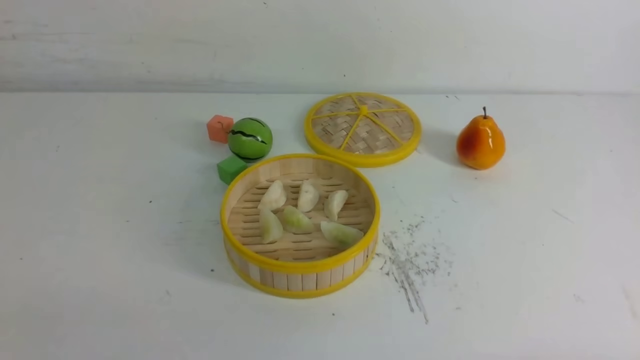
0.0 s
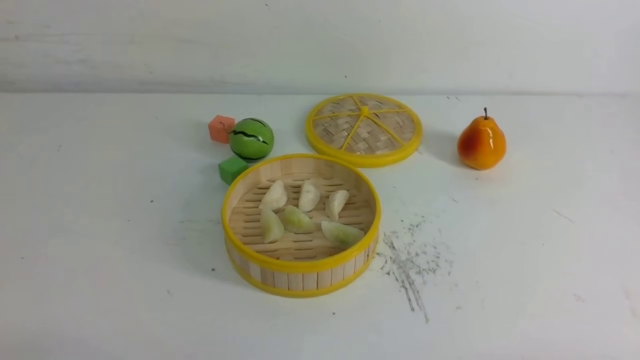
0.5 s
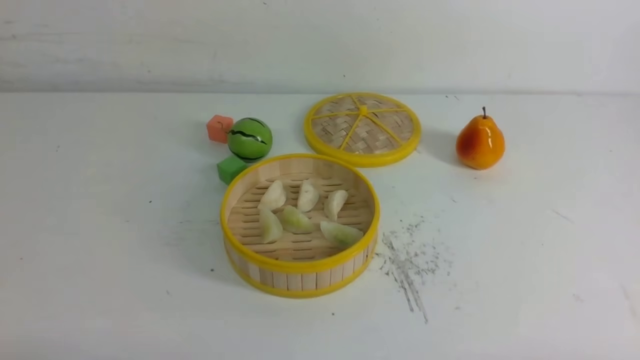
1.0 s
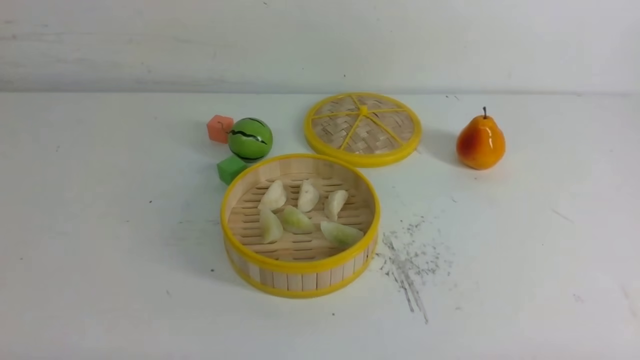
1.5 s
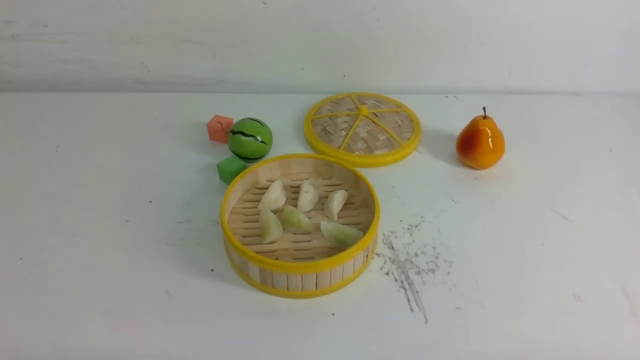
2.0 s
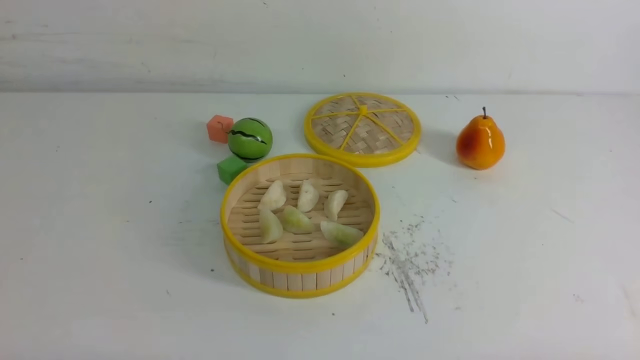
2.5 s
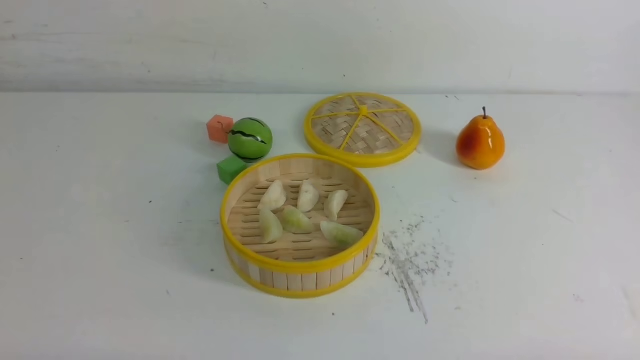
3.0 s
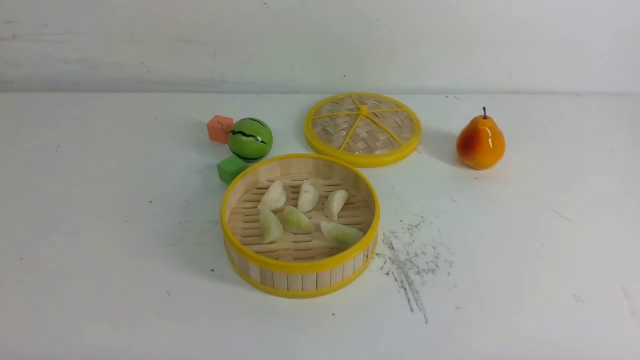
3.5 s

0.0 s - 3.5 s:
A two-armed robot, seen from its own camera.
Task of the whole recording: put the dumplings into the steamer on the white table.
2.0 s - 3.5 s: Neither gripper changes place.

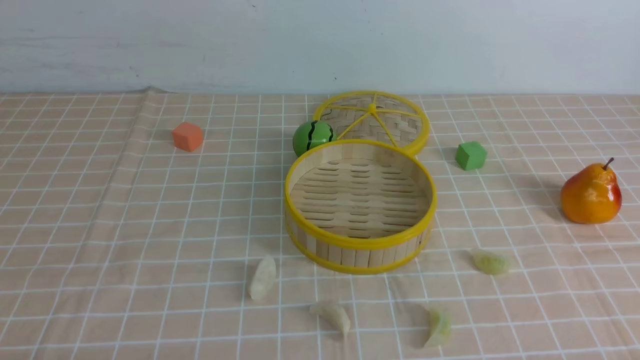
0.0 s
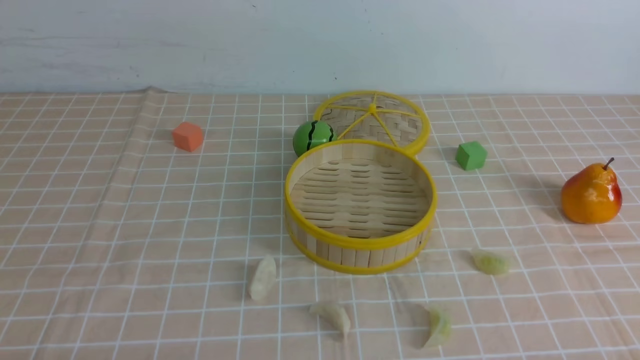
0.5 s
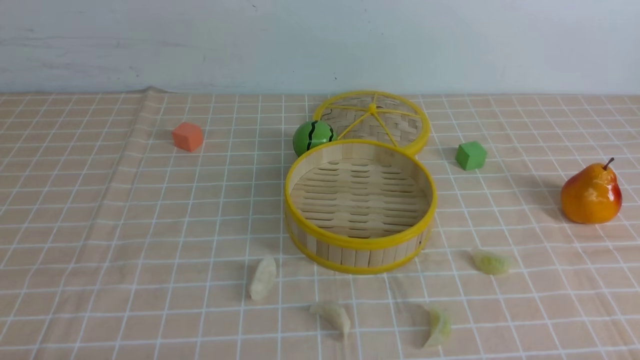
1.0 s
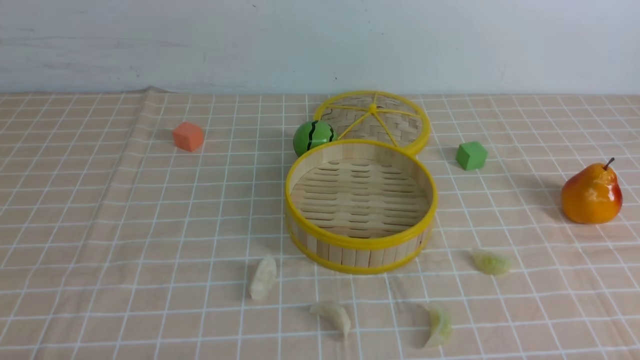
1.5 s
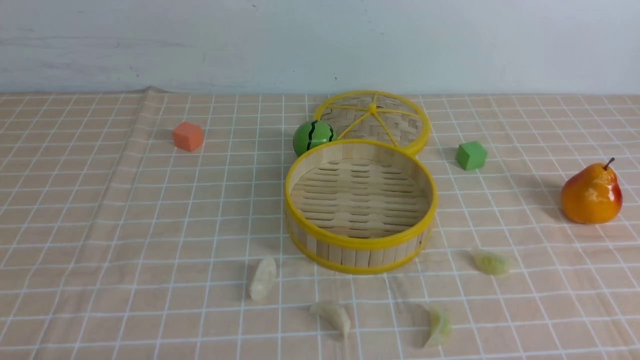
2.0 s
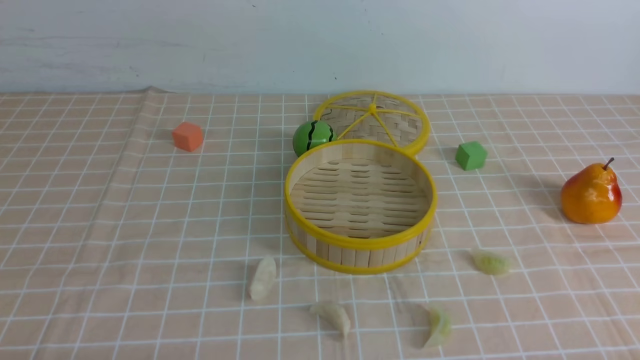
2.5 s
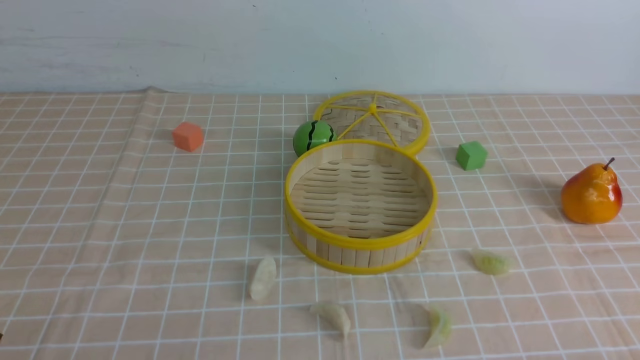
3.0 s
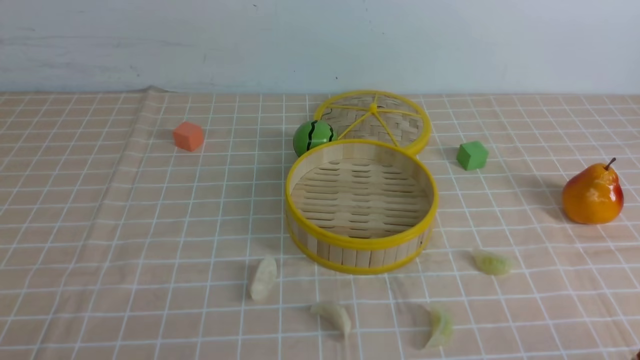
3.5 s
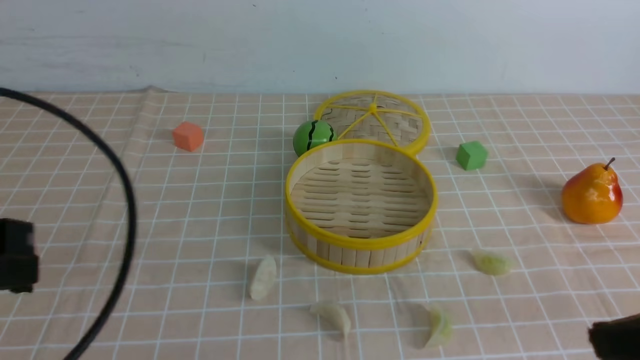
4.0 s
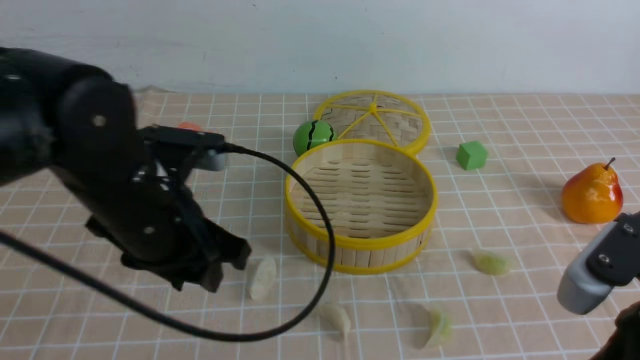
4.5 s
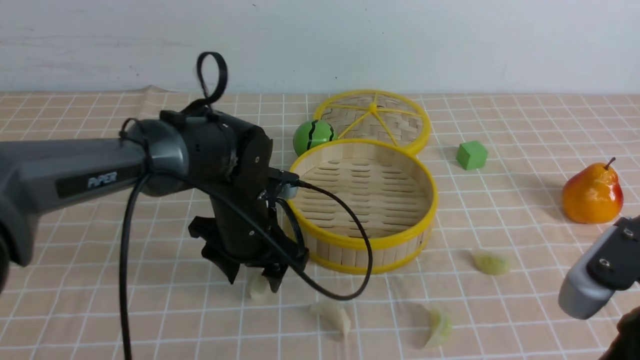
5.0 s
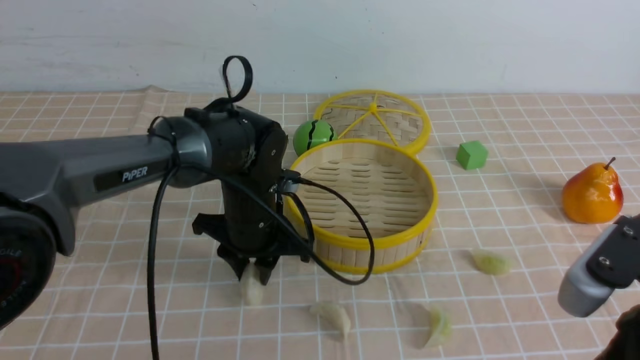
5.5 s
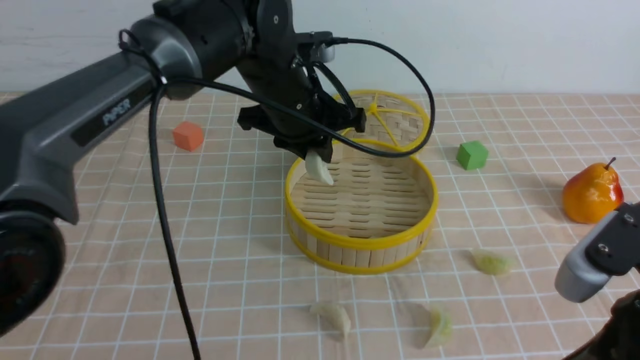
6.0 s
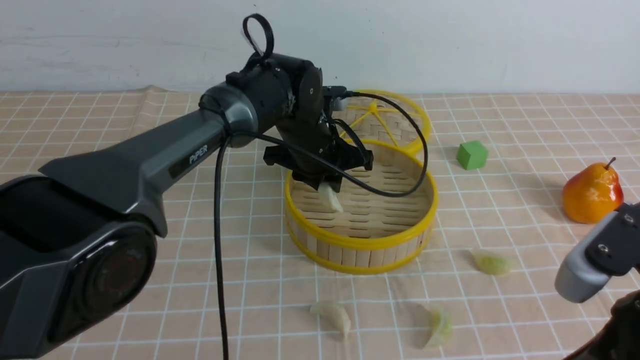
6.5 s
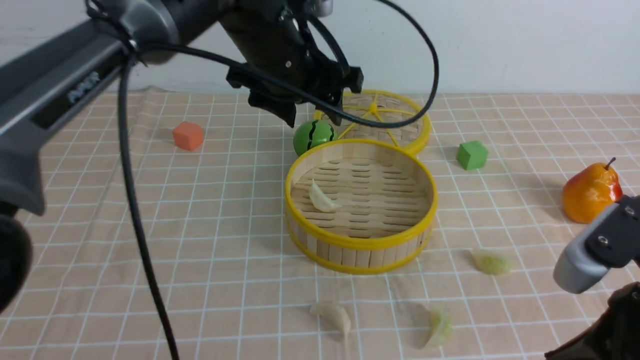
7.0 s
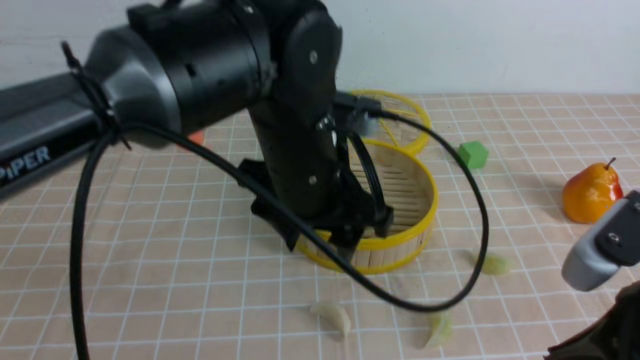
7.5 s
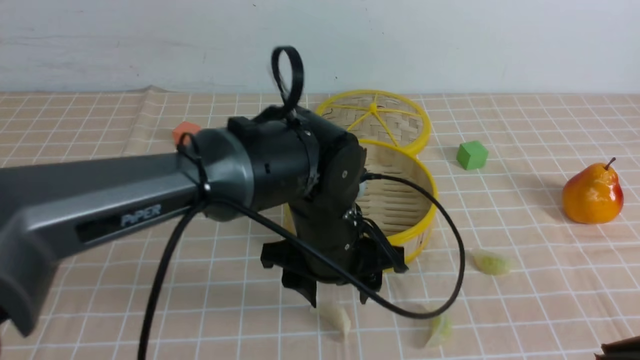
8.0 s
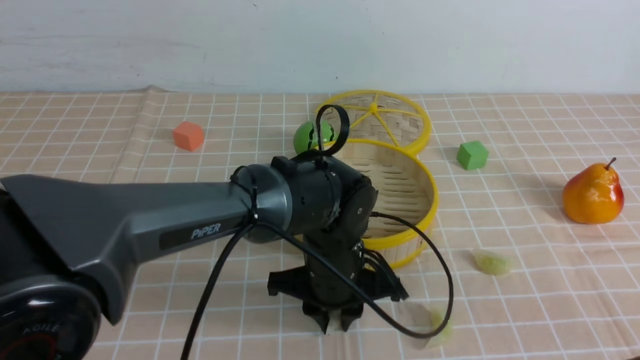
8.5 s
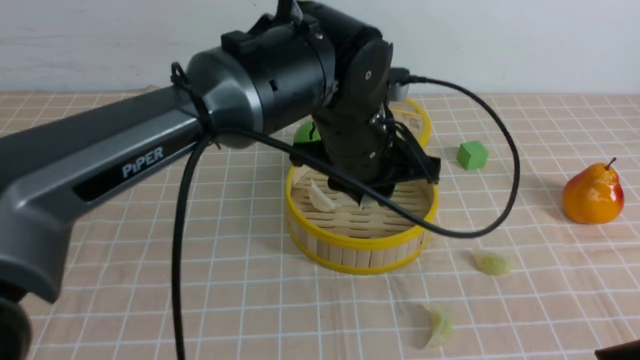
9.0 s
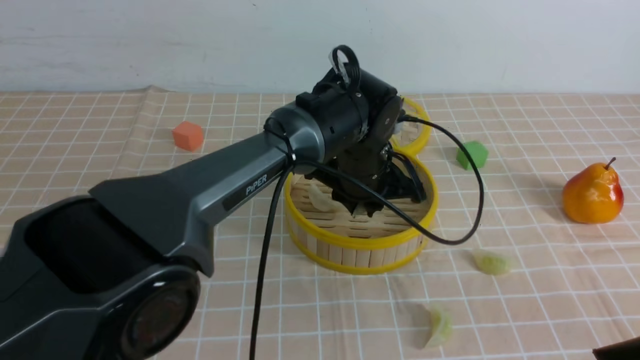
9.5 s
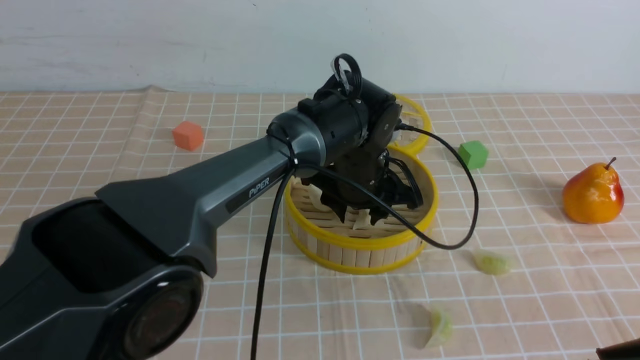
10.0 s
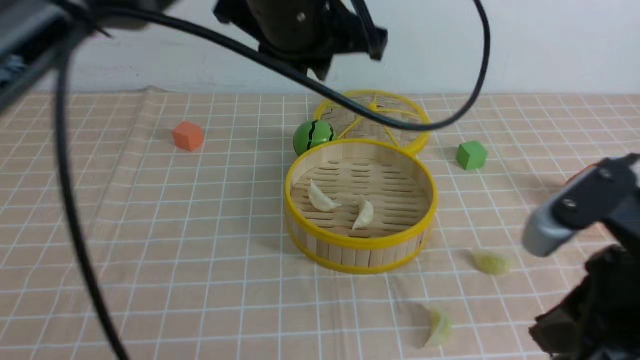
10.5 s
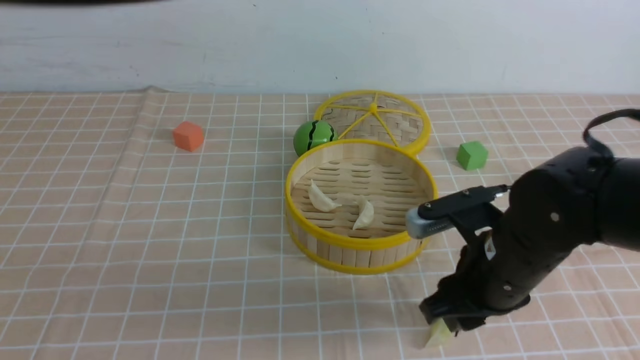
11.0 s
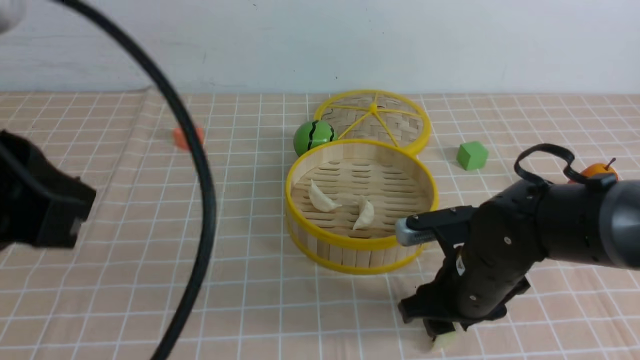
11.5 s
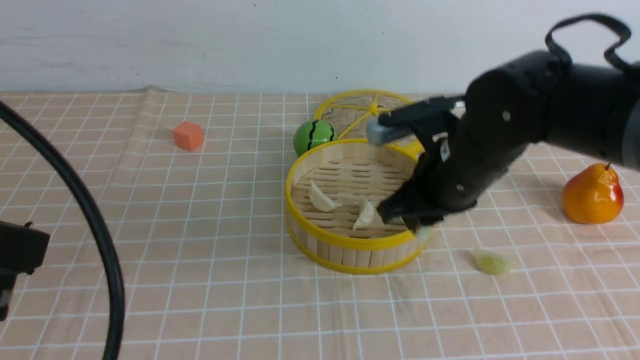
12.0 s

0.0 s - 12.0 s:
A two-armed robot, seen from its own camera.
Task of the whole recording: put the dumplings into the steamer on the table with the brown tablecloth.
Step, 0.0 s - 5.0 s: use the left arm to grab a dumpling.
Step, 5.5 s - 6.5 s: use the left arm to put the dumpling into the steamer.
Step, 7.0 s - 8.5 s: use the left arm to grab a dumpling.
Step, 9.0 s - 10.0 s: use the left arm to put the dumpling into the steamer.
Step, 10.5 s - 11.5 s: use the right arm to grab a dumpling.
2.0 s - 4.0 s: The right gripper is displaced upward by some 15 cm, and closes its fingers. Meanwhile the left gripper shifts some 20 cm upward and forward, and closes its fingers.
4.0 s - 6.0 s: The right gripper ends up some 5 cm from where it was; the left gripper shifts some 35 cm forward and to the right, and opens, then closes once more.
6.0 s - 8.0 s: The right gripper changes place by some 5 cm; the left gripper heads backward and downward, covering about 10 cm, and opens up.
8.0 s - 10.0 s: The left gripper moves forward, some 10 cm.
10.0 s - 12.0 s: The left gripper is displaced backward, to the left and upward by approximately 40 cm, and closes its fingers, while the right gripper is displaced forward and to the left by approximately 25 cm, and opens, then closes again.

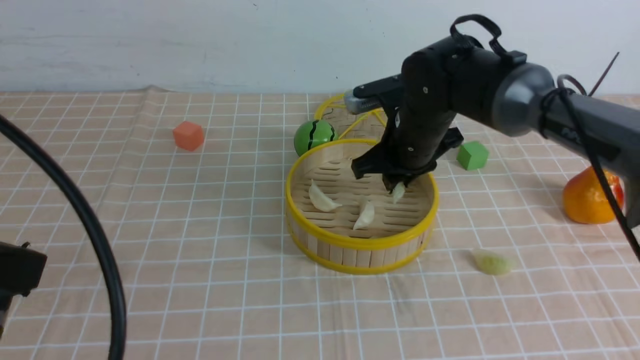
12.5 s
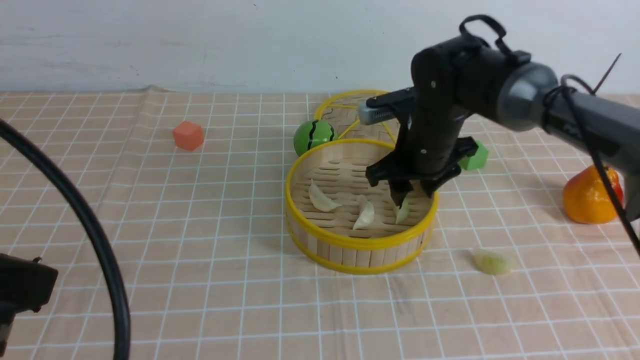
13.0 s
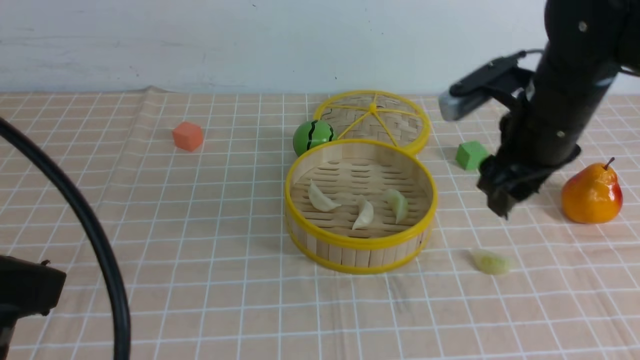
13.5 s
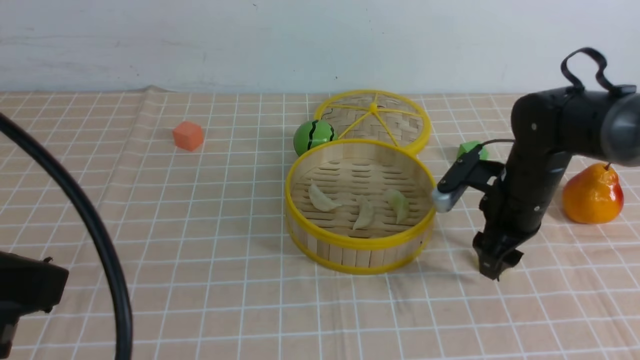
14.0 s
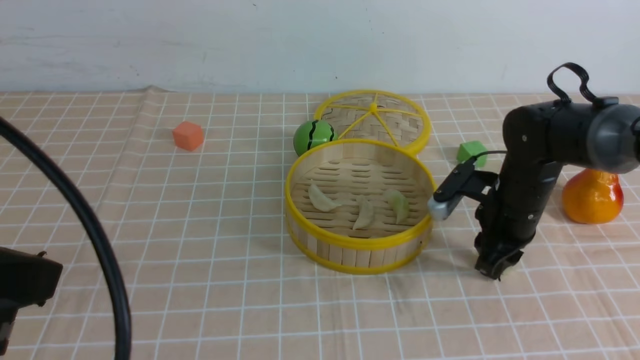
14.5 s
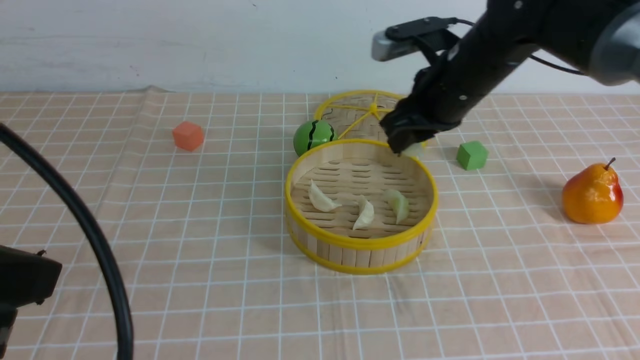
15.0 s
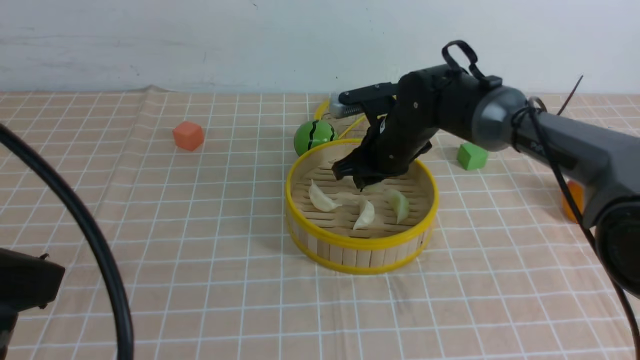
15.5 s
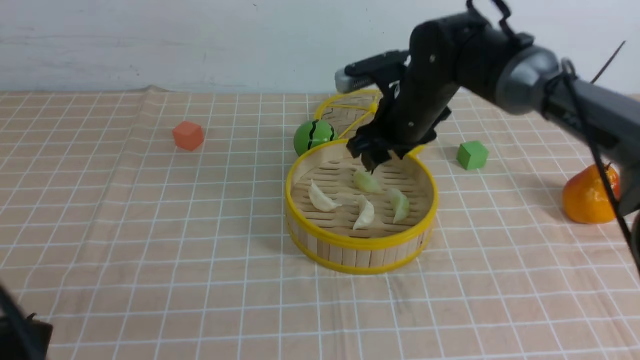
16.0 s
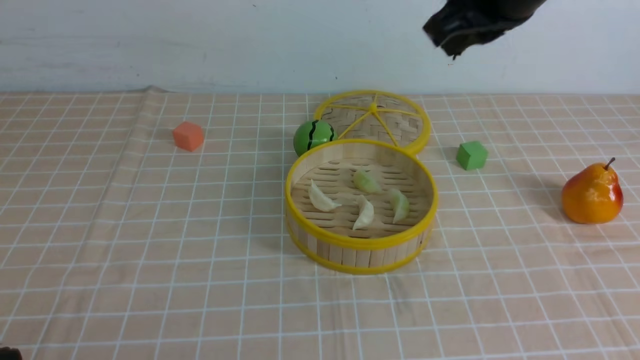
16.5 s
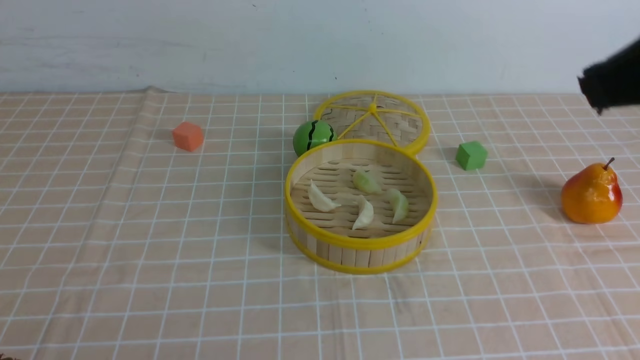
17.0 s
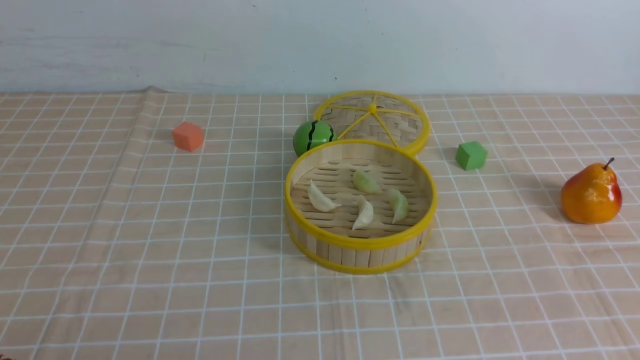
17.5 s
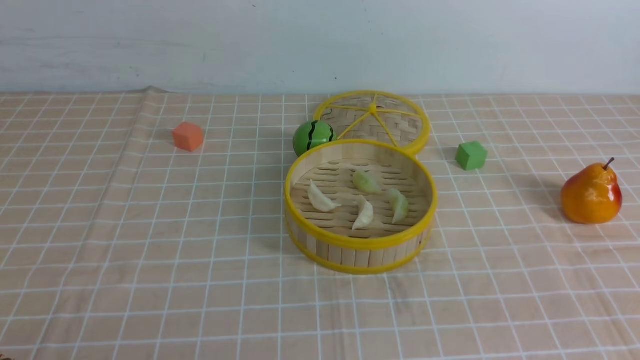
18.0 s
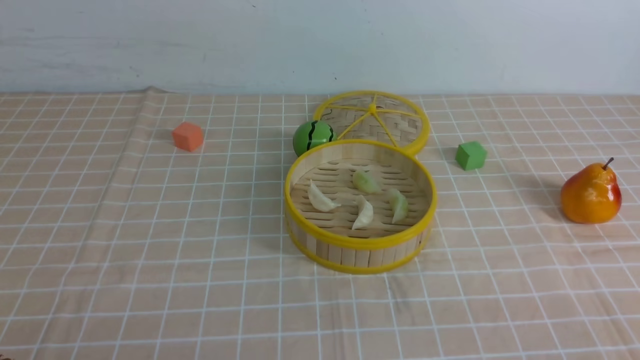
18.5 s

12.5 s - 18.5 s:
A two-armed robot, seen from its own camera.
Task of the whole recording: put the dumplings into the steamer on the table with the brown tablecloth.
Step, 13.5 s - 14.0 s: use the right arm to grab a dumpling.
Step, 14.5 s - 16.0 s: use the right arm to put the dumpling into the steamer.
12.5 s - 14.5 s: The right gripper heads to the right and downward, covering approximately 15 cm, and opens, then closes again.
14.5 s - 16.5 s: The left gripper shifts roughly 10 cm downward and backward; the right gripper moves up and down over some 25 cm, changing direction 2 times.
16.5 s - 18.5 s: The right gripper heads backward, downward and to the right, covering roughly 35 cm.
